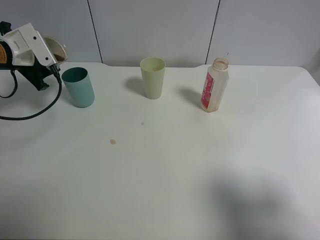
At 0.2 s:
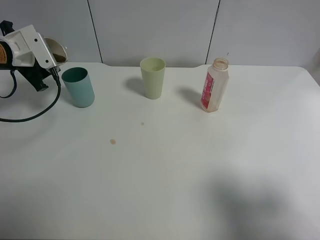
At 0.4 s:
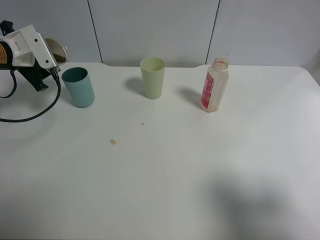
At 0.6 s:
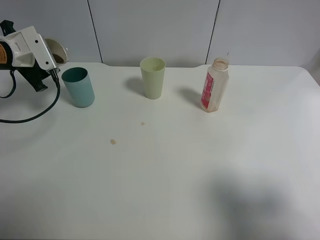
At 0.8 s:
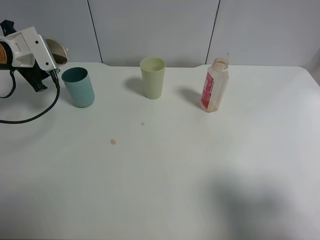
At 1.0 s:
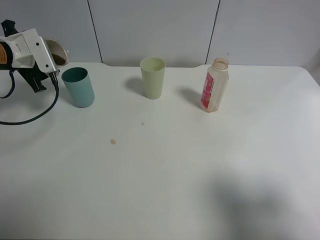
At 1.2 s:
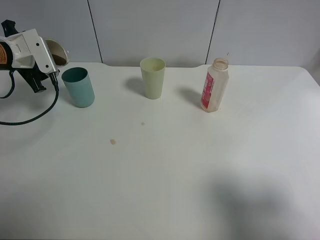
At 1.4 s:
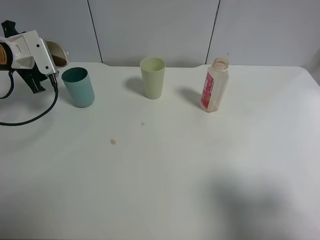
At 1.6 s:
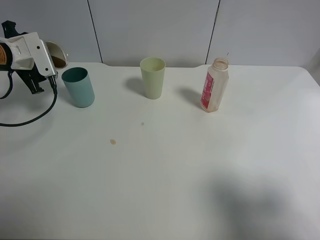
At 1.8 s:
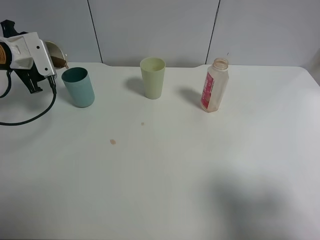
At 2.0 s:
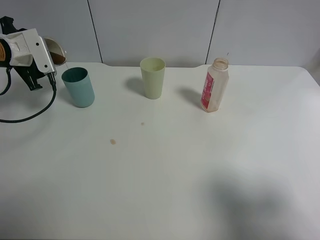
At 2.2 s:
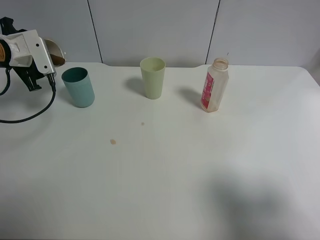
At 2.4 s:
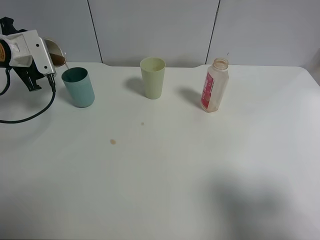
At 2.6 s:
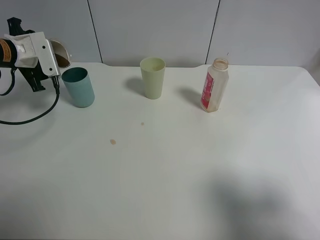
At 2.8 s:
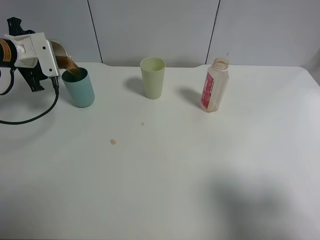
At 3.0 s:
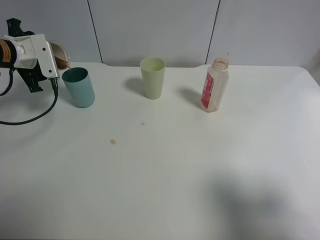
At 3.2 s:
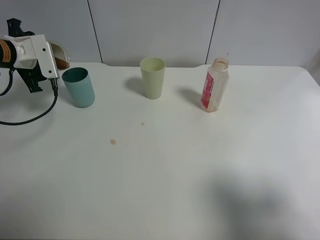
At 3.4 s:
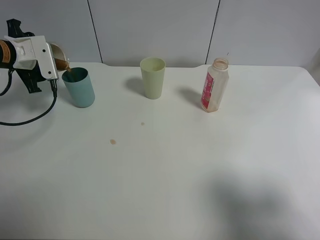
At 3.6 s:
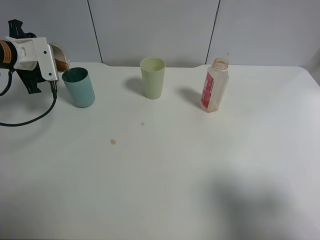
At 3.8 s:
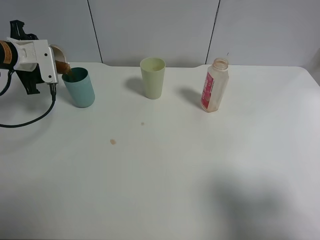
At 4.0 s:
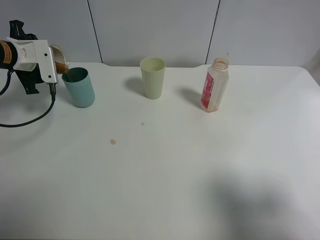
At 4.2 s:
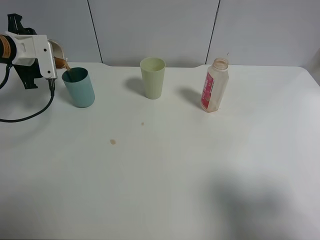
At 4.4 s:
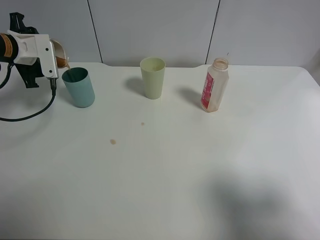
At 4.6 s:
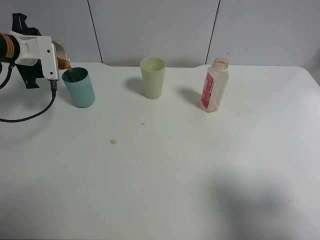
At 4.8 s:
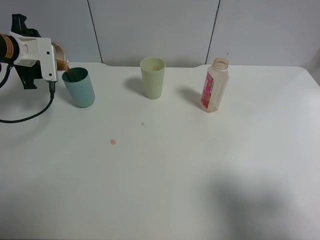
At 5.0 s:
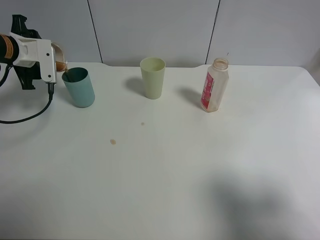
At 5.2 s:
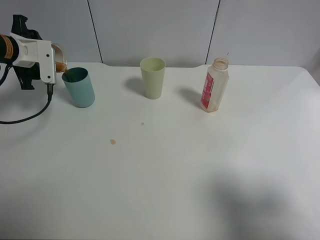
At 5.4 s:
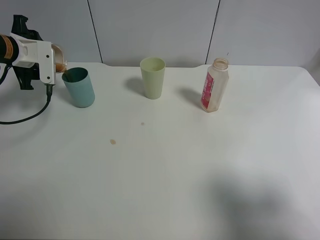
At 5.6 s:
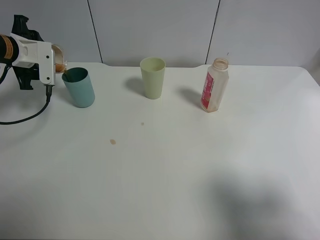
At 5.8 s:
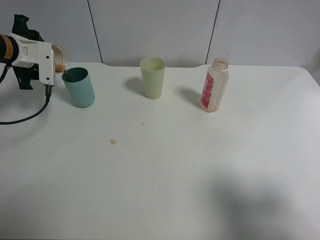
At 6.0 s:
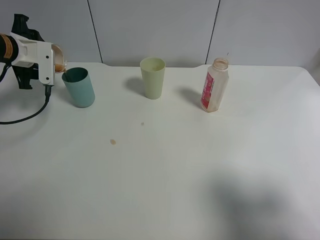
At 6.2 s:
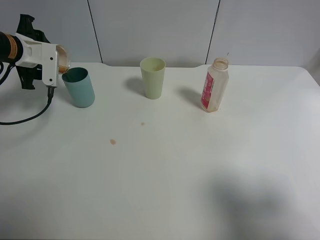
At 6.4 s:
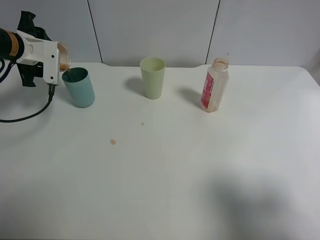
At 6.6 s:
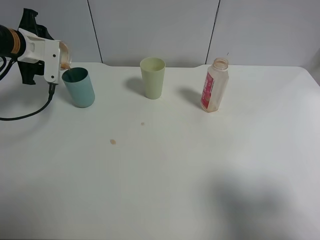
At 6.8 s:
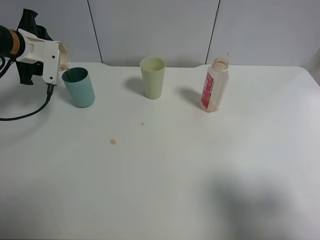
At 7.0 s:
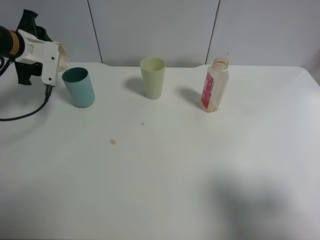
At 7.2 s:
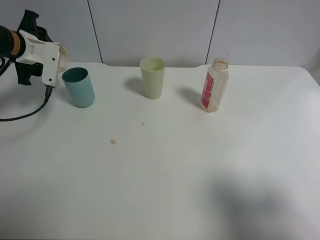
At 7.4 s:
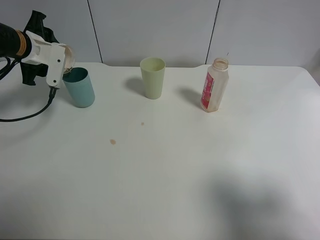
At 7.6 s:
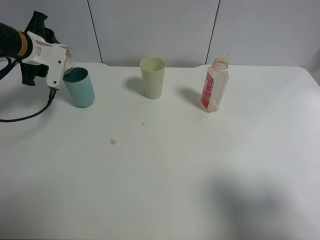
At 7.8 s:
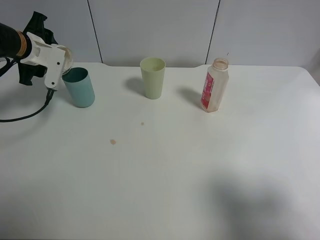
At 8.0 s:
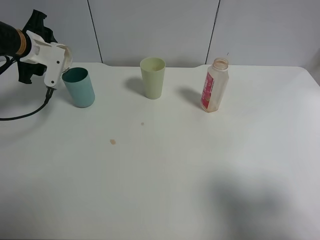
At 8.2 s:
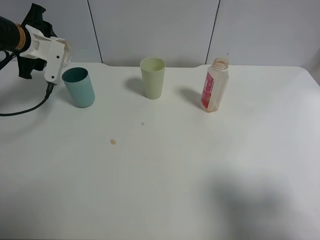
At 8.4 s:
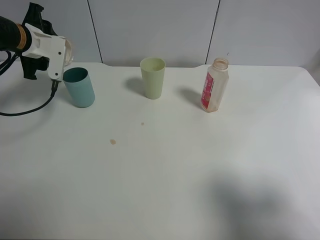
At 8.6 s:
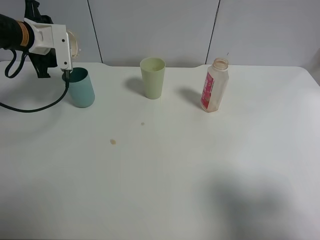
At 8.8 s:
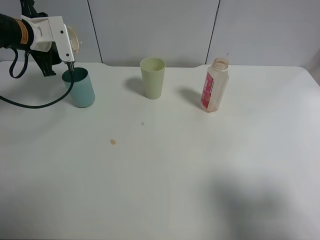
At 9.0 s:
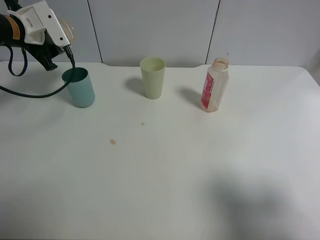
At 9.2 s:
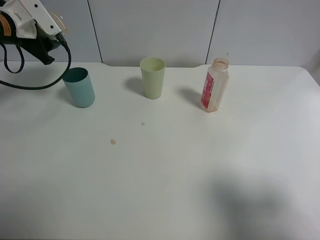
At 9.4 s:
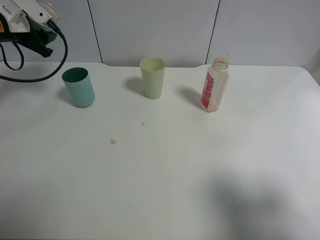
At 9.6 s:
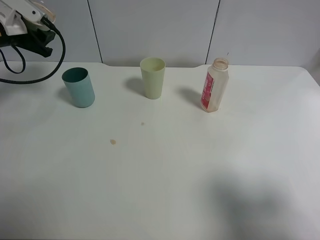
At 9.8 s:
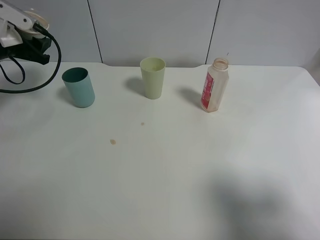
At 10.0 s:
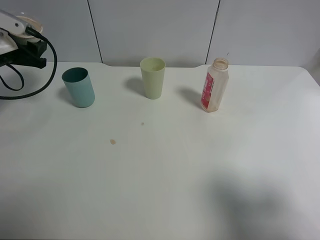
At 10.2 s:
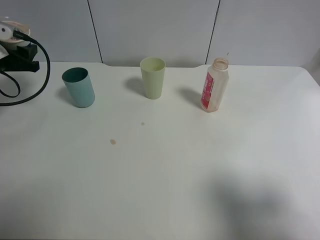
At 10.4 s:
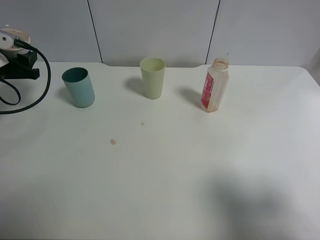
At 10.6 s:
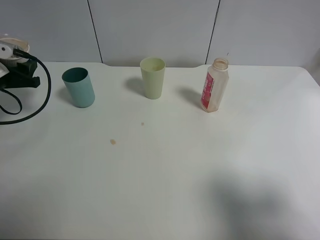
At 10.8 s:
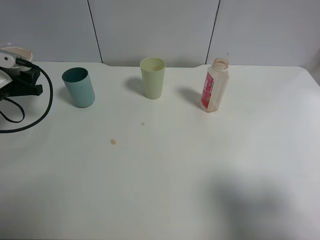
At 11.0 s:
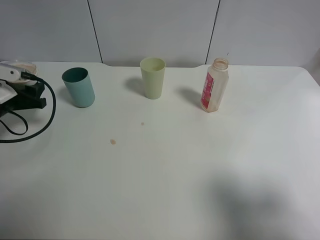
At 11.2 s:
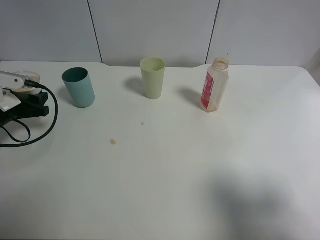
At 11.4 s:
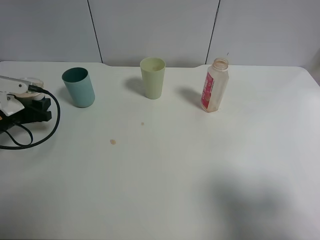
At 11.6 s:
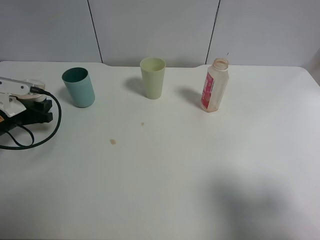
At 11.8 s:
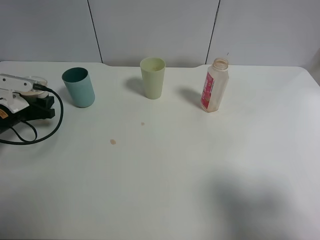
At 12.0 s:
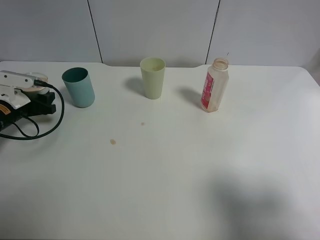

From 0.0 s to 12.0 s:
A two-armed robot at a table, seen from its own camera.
Task of the whole recording: use a clamp to hold the bottle of the drink, pour the beverage into a random cup, then clamp the cup containing the drink and pour the drink into another random cup.
Step, from 0.0 s to 9.2 s: Pour the drink into the blue plastic cup with left gripper.
From 0.0 s to 3.0 s: The grippers stay close to where they were, moving slightly.
From 3.0 s to 6.0 s: The grippers move only a little.
From 6.0 s to 7.6 s: There are only small adjustments of the grippers.
From 9.0 s to 10.4 s: The left gripper moves backward, to the left and downward, some 10 cm.
From 10.4 s to 12.0 s: The left gripper shifts roughly 10 cm downward.

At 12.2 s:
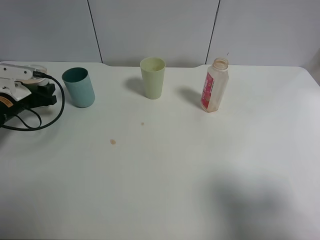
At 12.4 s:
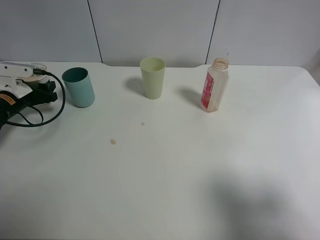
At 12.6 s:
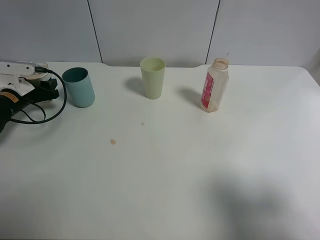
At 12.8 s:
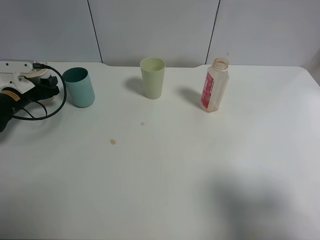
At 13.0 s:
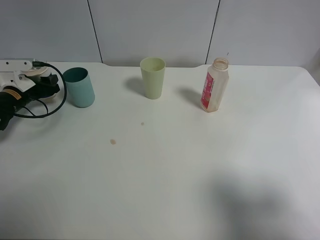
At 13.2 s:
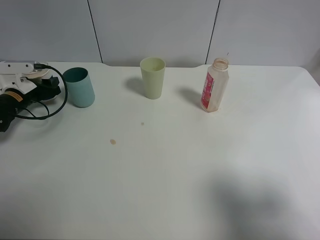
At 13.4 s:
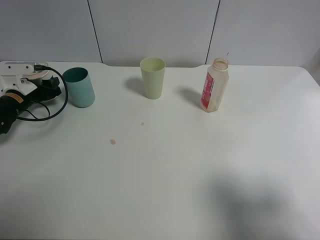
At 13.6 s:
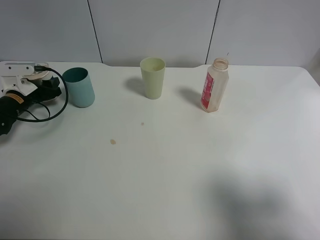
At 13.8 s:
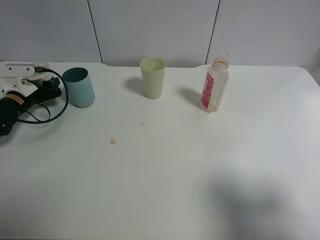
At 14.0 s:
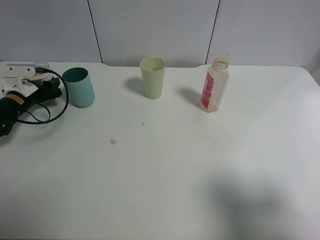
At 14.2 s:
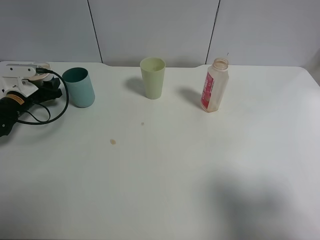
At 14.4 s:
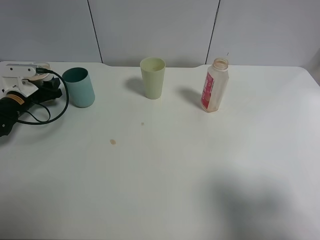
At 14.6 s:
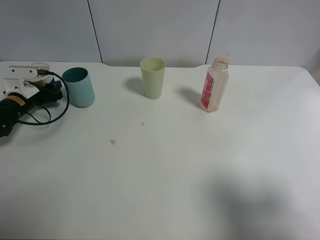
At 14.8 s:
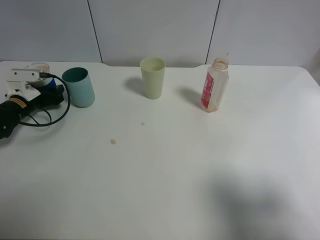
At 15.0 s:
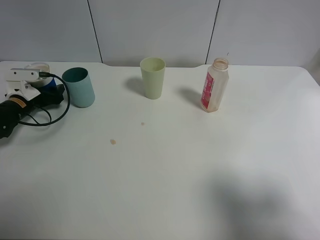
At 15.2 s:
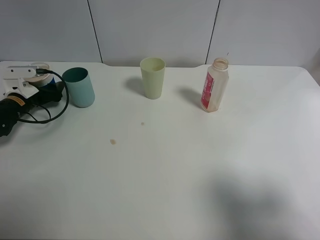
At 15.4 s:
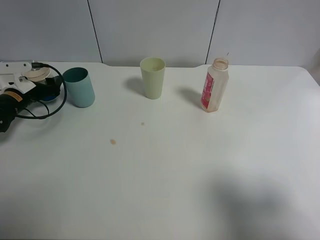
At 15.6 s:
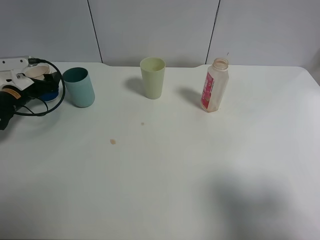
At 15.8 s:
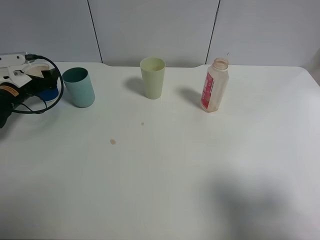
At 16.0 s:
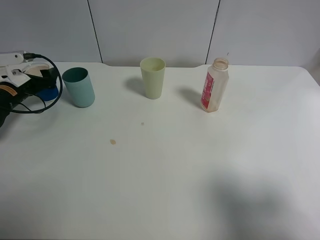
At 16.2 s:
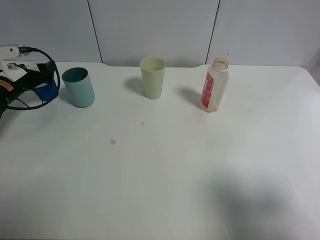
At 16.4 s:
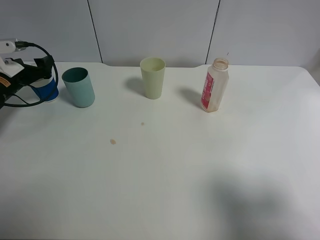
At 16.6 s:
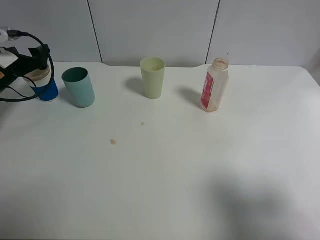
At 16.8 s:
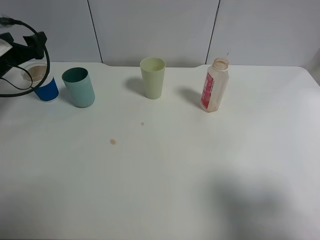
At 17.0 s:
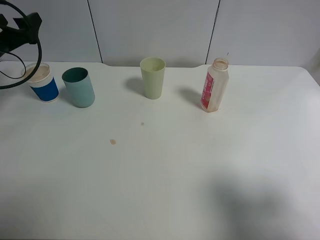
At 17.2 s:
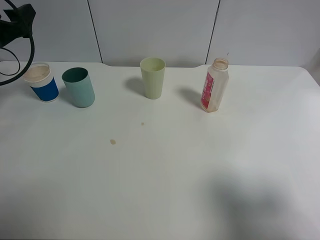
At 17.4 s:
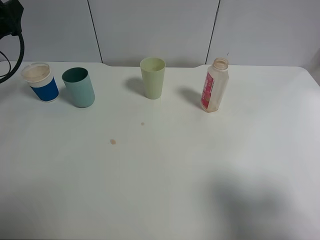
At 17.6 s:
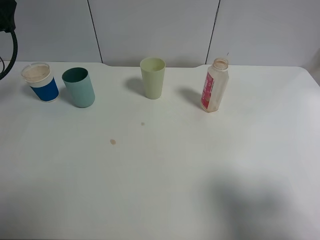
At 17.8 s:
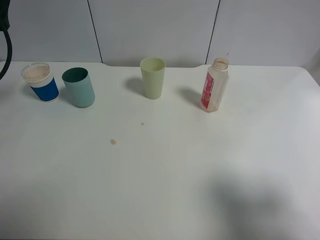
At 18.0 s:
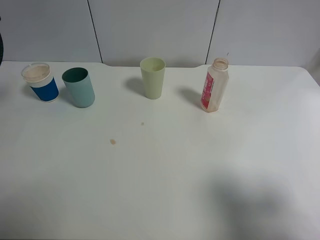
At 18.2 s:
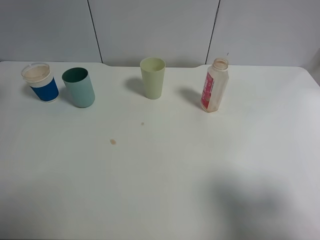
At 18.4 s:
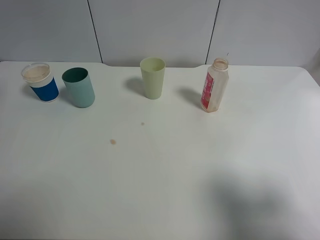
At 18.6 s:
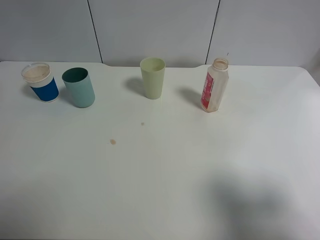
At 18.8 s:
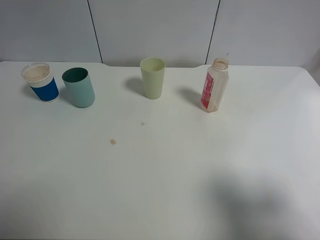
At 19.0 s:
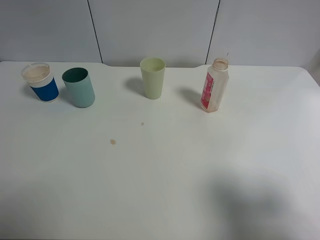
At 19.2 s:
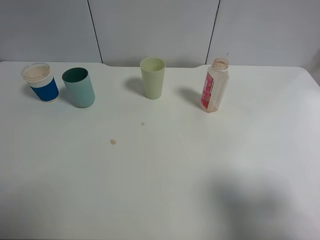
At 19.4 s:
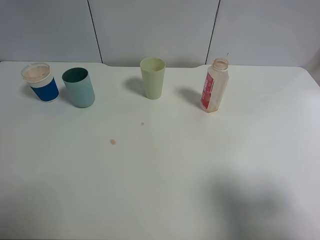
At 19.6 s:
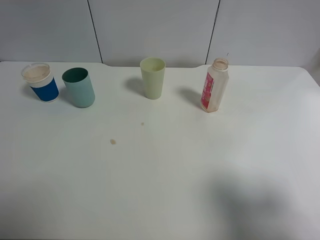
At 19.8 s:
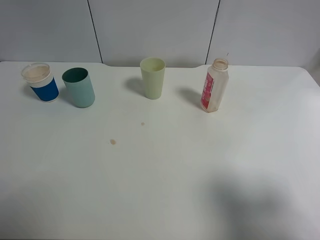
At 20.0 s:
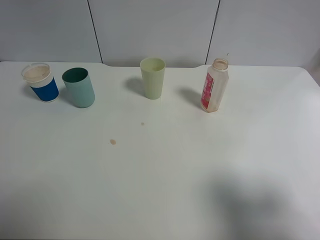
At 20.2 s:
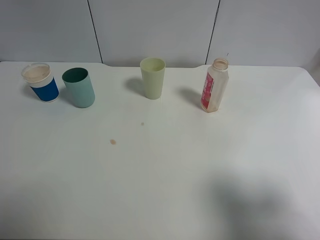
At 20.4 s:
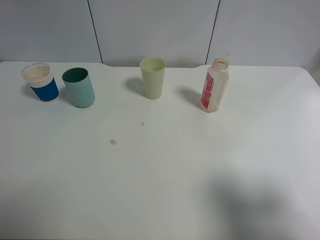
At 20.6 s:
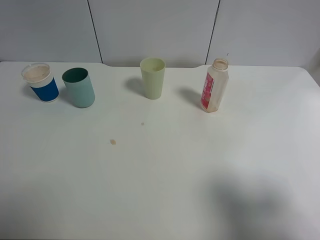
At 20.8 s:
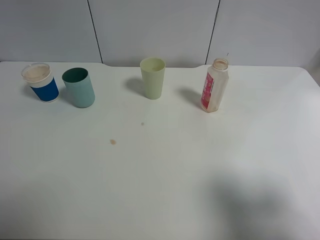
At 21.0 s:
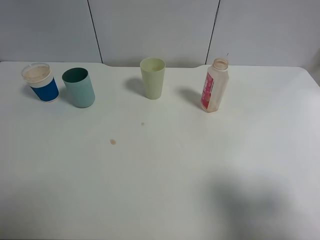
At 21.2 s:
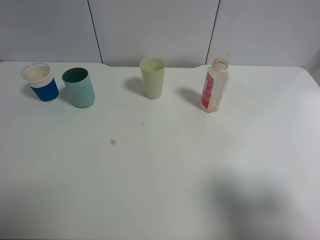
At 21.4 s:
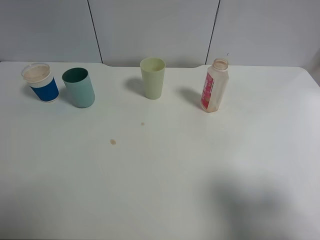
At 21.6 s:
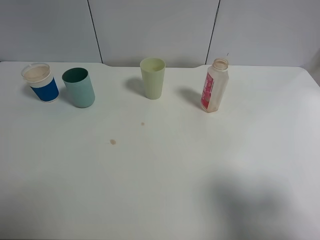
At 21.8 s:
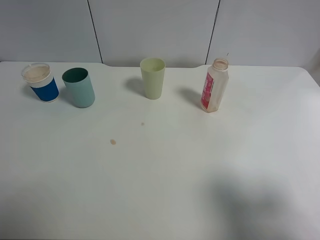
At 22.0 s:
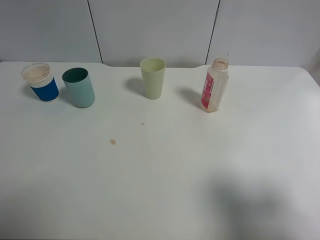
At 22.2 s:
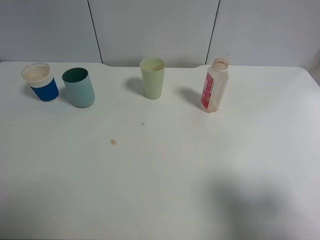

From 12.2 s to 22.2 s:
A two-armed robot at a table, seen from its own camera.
Task of the whole recording: use a clamp to hold the bottle of the drink, pour the beverage into a random cup, then clamp the cup containing the drink and pour the drink into another random cup.
Step, from 12.2 s to 16.6 s: Place the paper cup on the table with left gripper.
From 12.2 s to 13.6 s: The grippers make only small movements.
From 13.6 s to 15.0 s: The left gripper opens its fingers.
From 15.0 s to 16.4 s: The left gripper heads upward, covering about 5 cm.
From 16.4 s to 18.0 s: The left gripper goes roughly 20 cm upward and backward.
